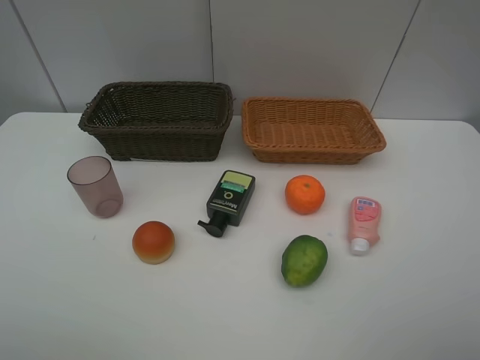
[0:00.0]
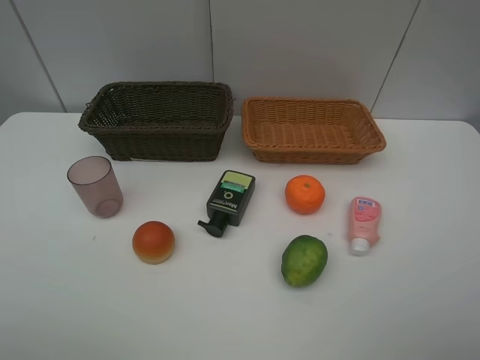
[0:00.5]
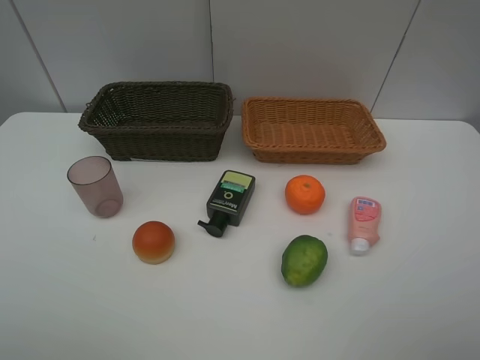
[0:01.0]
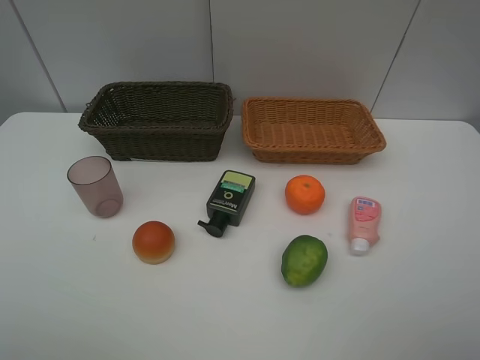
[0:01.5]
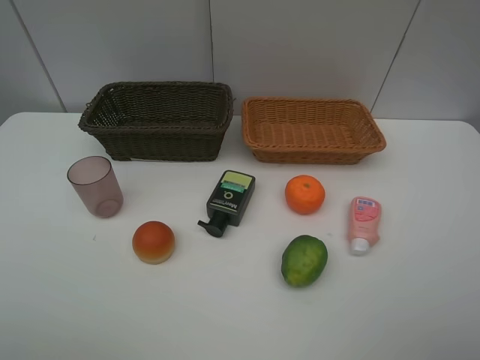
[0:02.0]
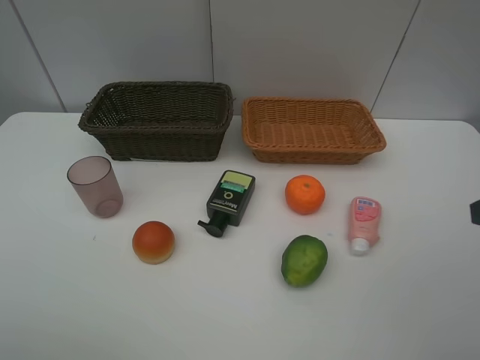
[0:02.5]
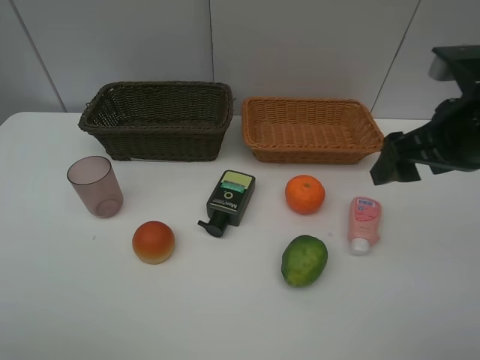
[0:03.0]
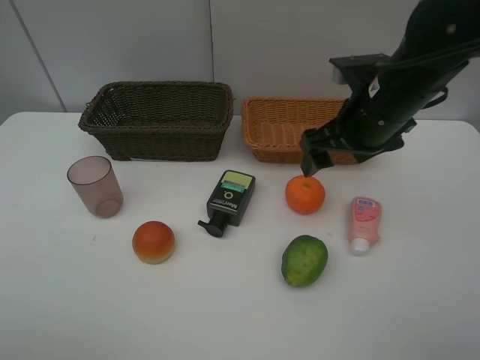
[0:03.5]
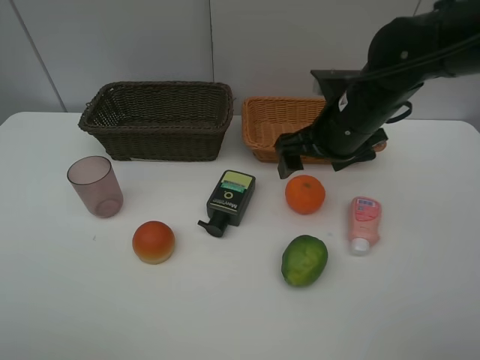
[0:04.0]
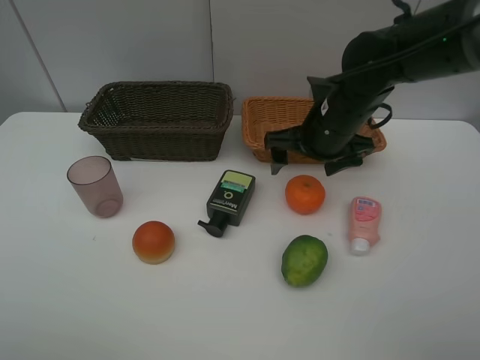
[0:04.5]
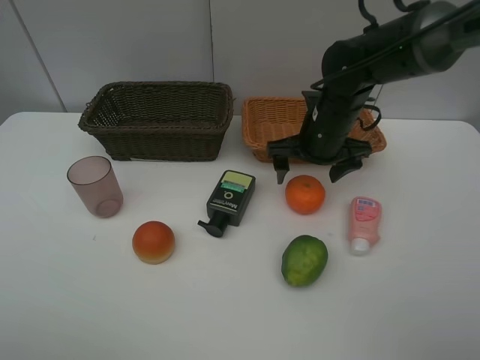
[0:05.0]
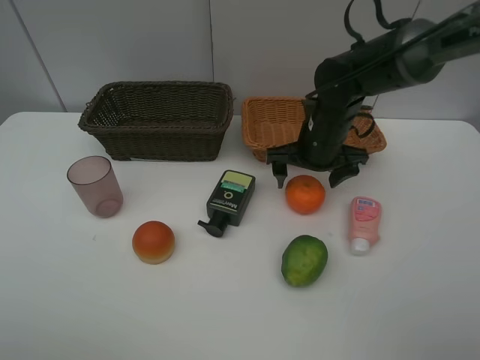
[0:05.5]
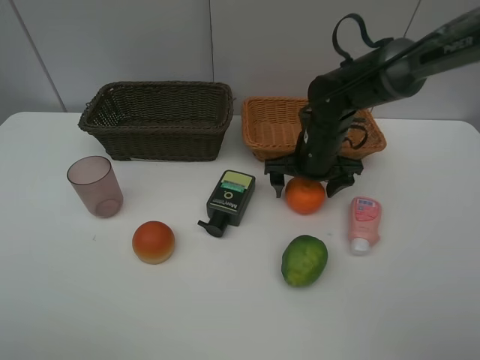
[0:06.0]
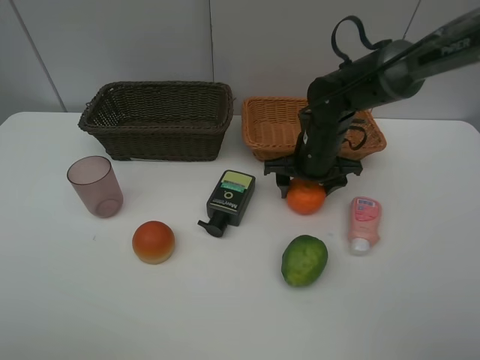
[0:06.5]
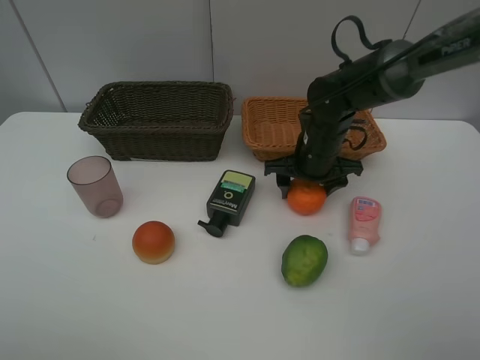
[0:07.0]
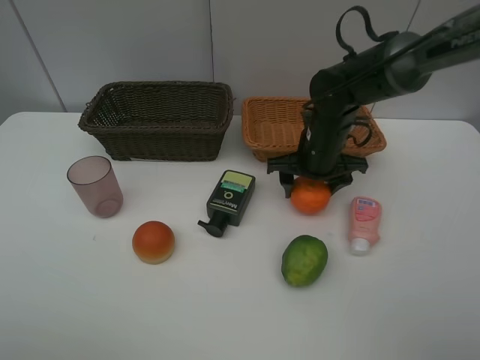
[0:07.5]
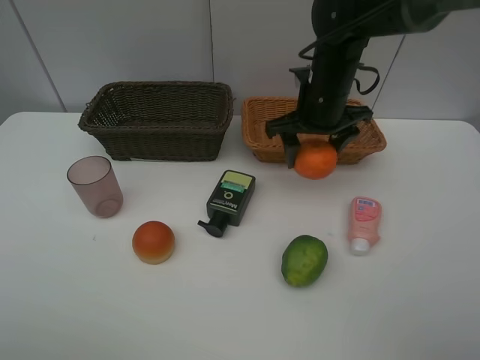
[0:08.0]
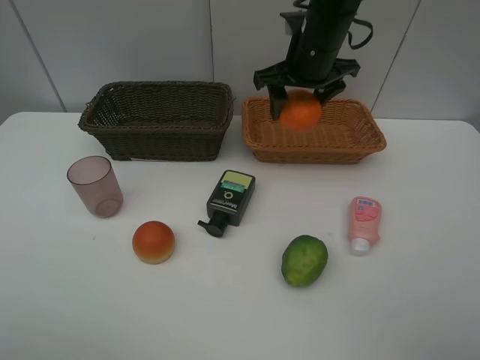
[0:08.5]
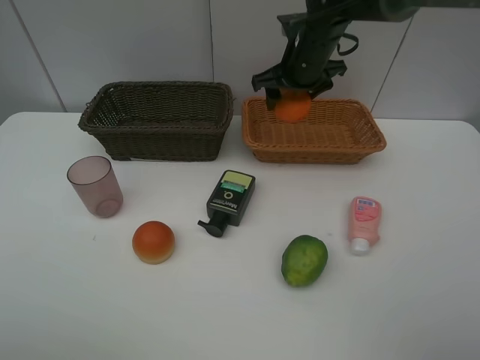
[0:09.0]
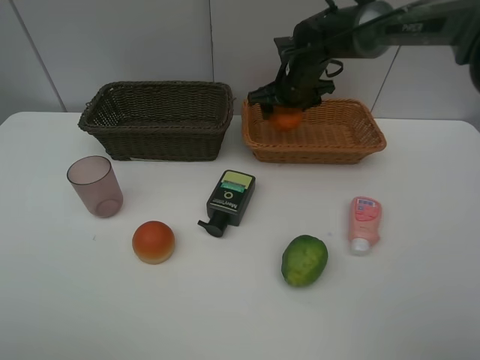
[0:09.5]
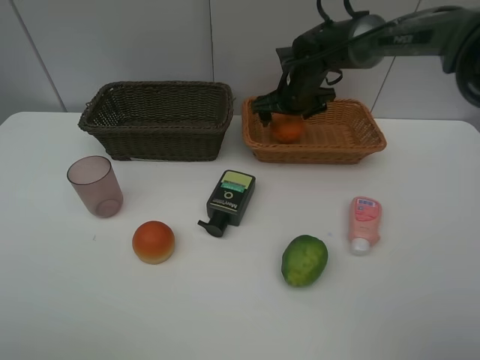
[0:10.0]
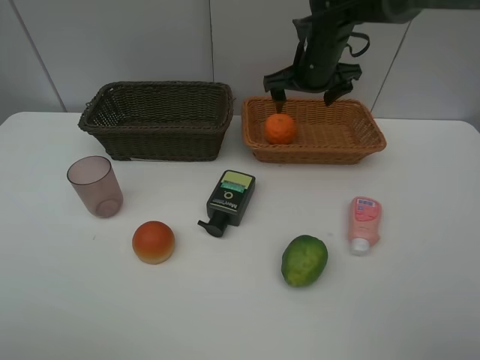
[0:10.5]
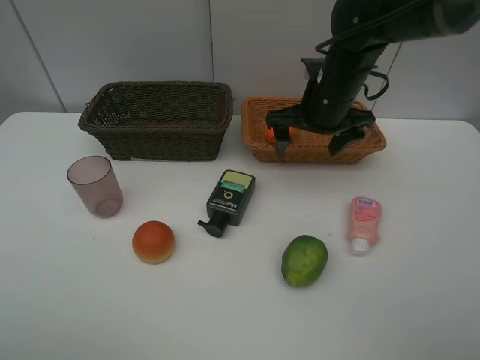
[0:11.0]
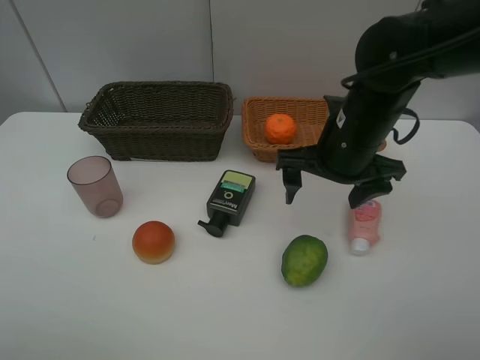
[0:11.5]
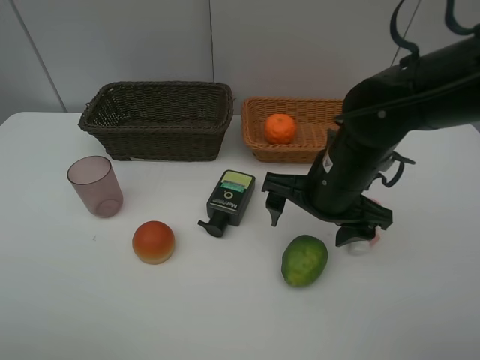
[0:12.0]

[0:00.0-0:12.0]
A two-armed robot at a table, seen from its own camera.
Task of the whole recording: place multiple objects separately in different baskets.
0.0 to 2.0 s: The two grippers keep their place.
2.0 to 4.0 s: The right gripper moves forward and to the left, roughly 35 cm.
4.0 to 6.0 s: The right gripper goes roughly 10 cm downward and forward.
6.0 to 8.0 s: The right gripper goes about 10 cm upward, and closes its fingers.
8.0 to 10.0 s: The right gripper shifts roughly 10 cm forward, and opens its fingers.
10.0 to 12.0 s: The right gripper moves backward, roughly 25 cm.

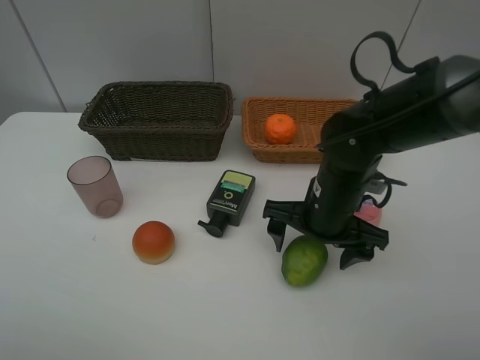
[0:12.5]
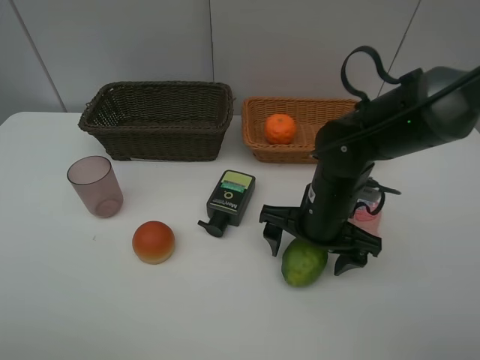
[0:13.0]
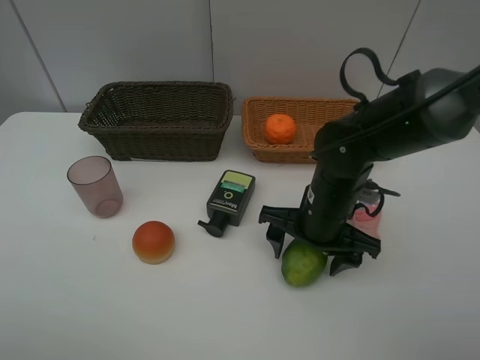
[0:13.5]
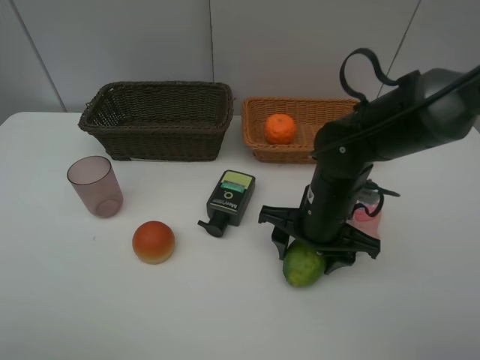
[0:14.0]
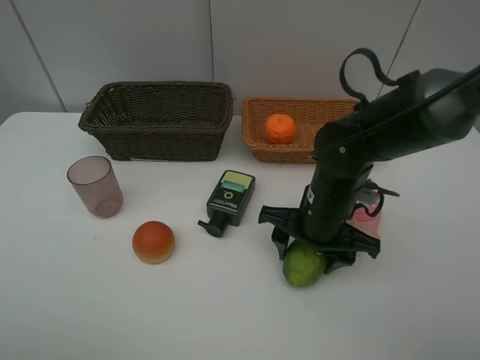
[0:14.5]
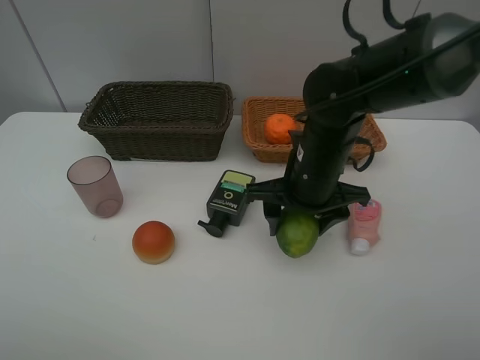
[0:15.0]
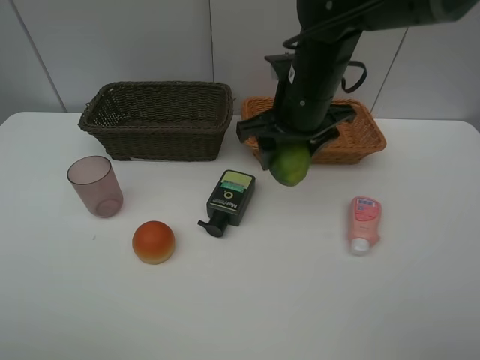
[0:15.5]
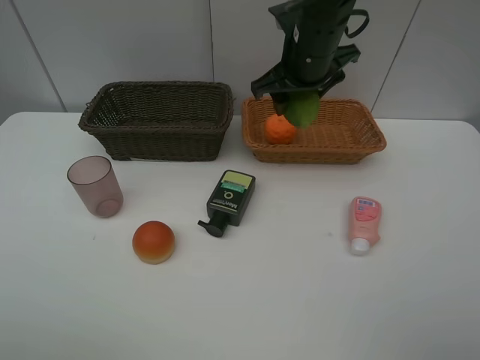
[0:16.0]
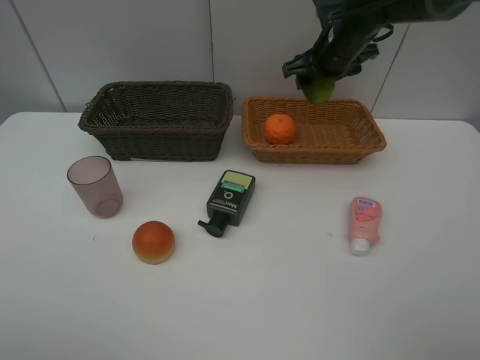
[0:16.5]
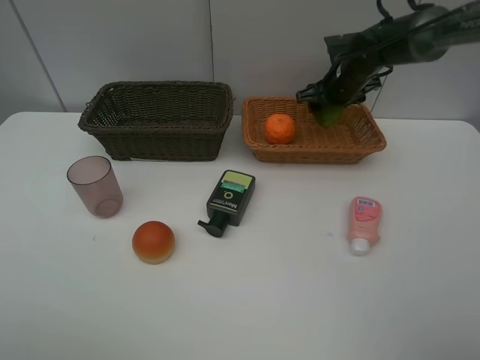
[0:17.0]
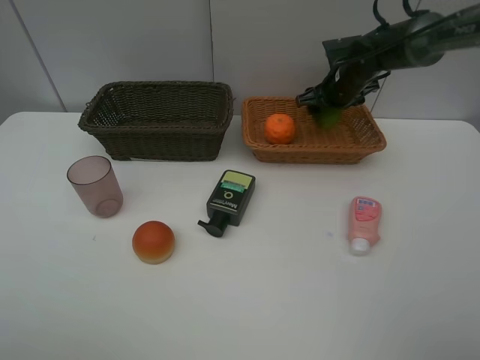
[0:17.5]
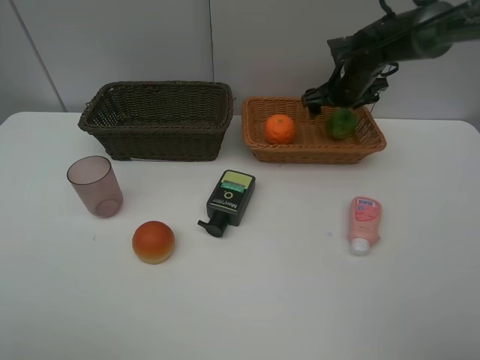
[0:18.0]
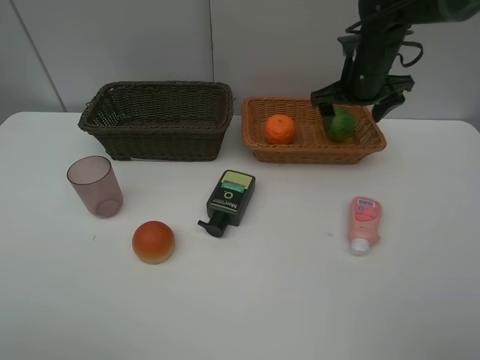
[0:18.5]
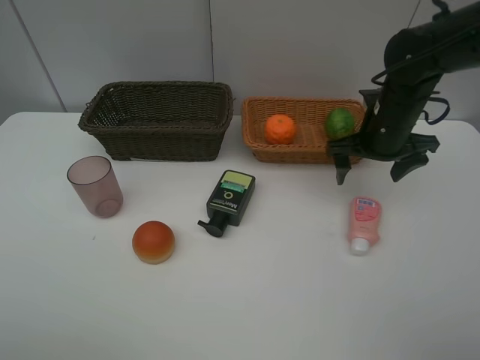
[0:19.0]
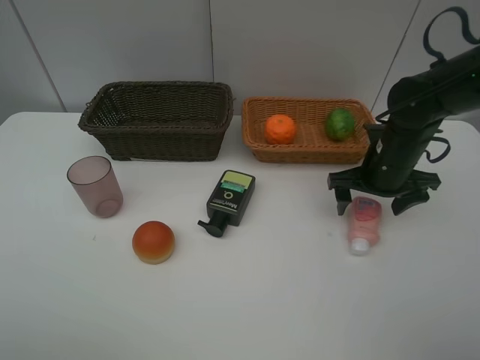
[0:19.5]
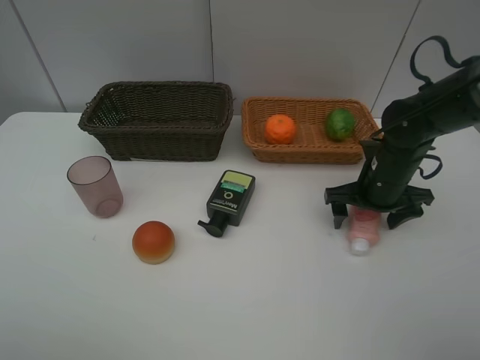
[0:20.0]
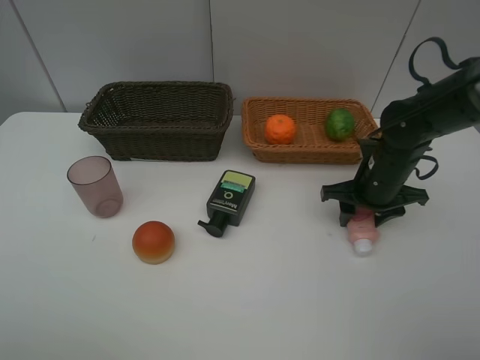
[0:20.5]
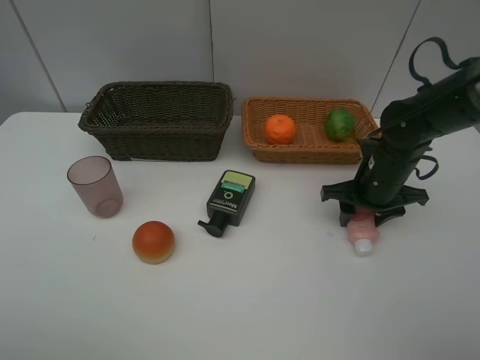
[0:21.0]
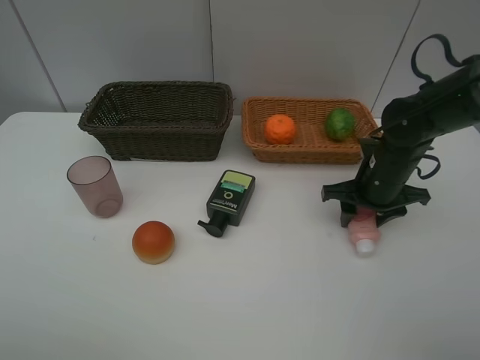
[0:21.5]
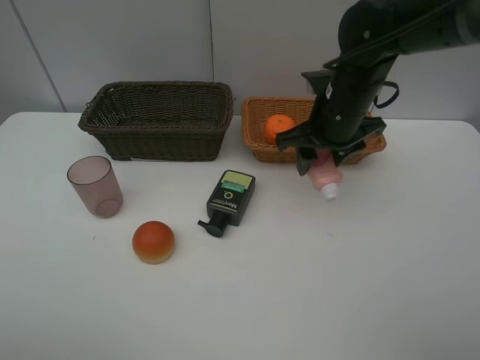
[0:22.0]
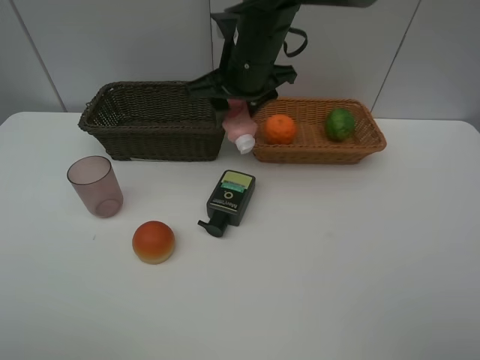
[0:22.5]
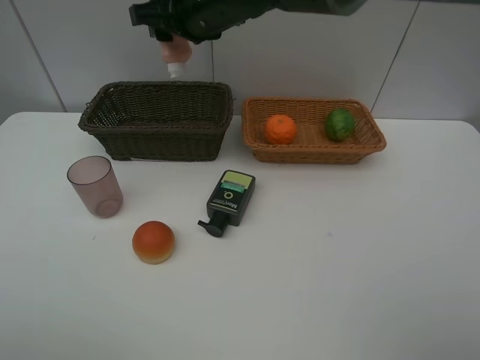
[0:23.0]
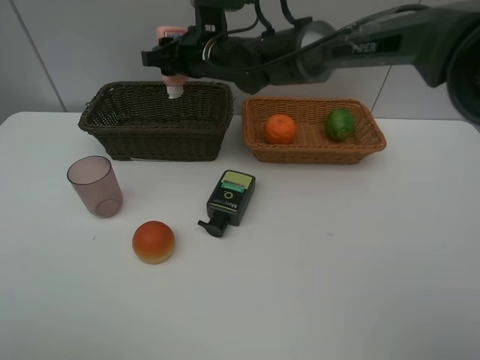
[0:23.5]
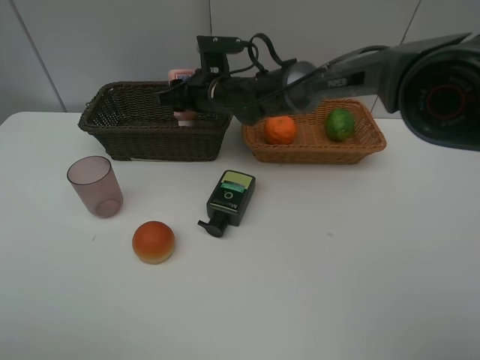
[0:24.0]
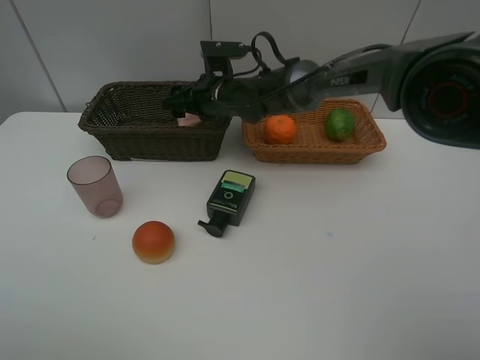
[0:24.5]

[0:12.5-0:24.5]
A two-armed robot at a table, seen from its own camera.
Task of the whole recording: place multiple objects separately in different baskets.
12.5 to 14.5 s: The right gripper closes up.
14.5 to 16.5 s: The right gripper goes roughly 25 cm forward and upward.
16.5 to 18.5 s: The right gripper opens its fingers.
18.5 to 20.5 s: The right gripper travels backward and downward by approximately 15 cm, and closes.
20.5 to 22.5 s: The right gripper moves to the left and upward, roughly 25 cm.
22.5 to 24.5 s: The right gripper is displaced downward and forward by about 15 cm, and opens its fingers.

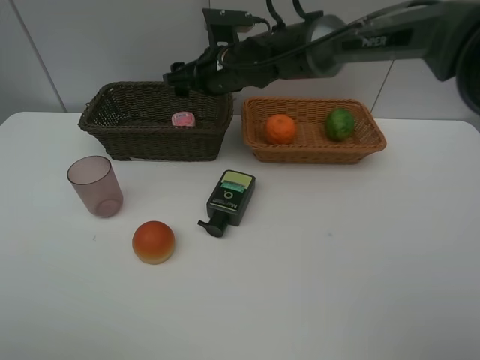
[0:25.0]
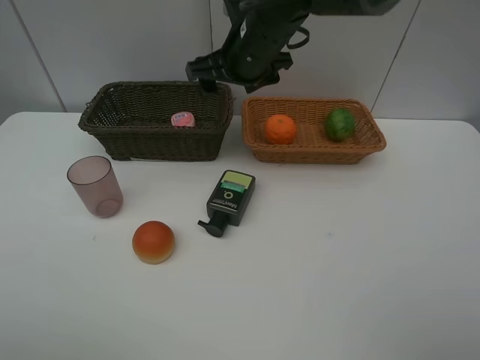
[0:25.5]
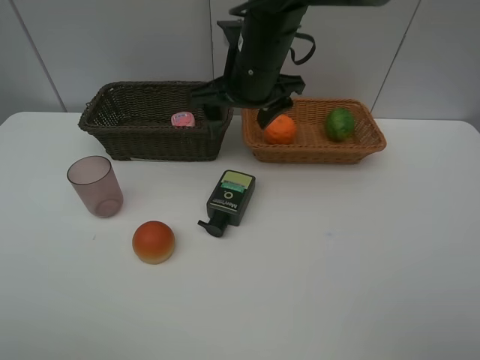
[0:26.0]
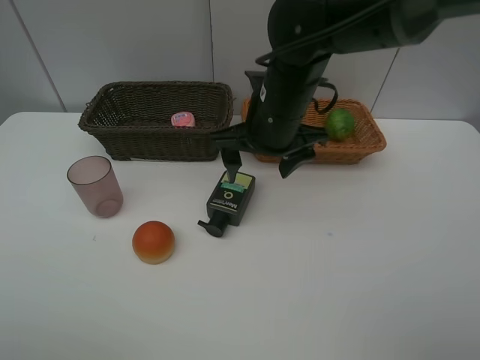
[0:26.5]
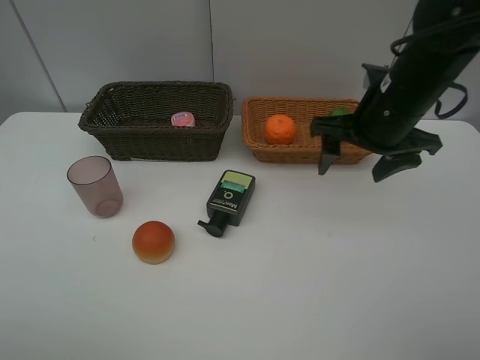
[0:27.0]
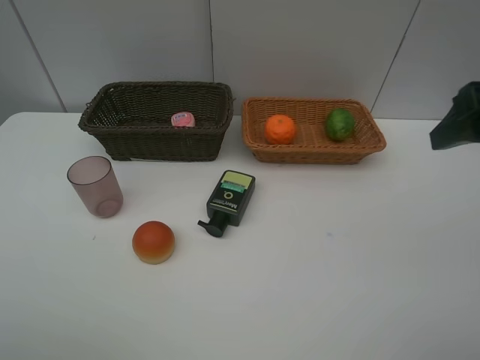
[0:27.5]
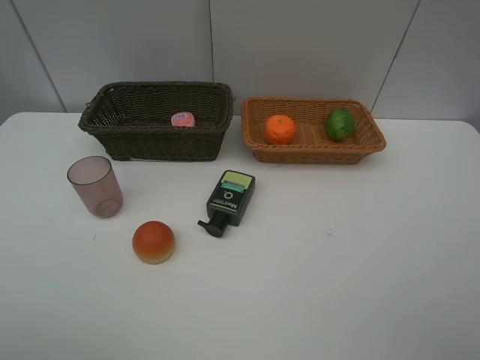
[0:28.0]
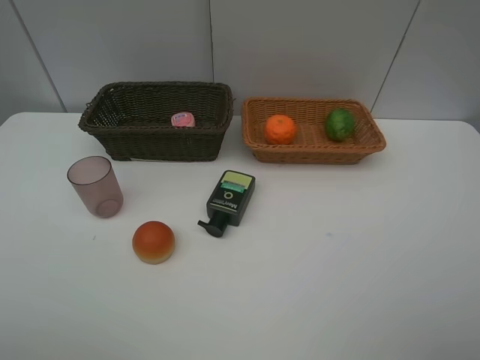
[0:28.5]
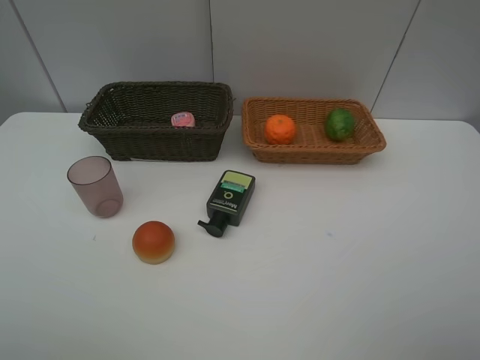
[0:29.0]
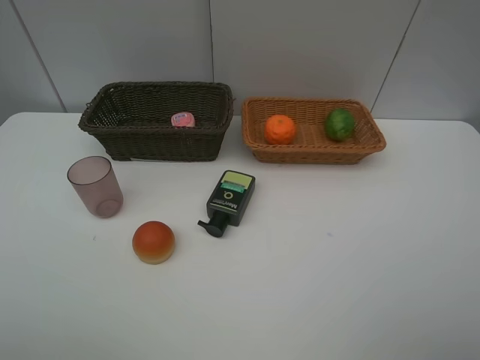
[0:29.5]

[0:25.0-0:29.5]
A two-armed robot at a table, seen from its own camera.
Task of the whole recording: place multiple objects separately in different baskets.
25.0 to 27.0 s: The right gripper moves to the right and backward, approximately 25 cm.
27.0 to 29.5 s: The right gripper travels backward and to the right by about 30 cm.
